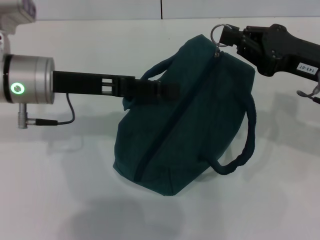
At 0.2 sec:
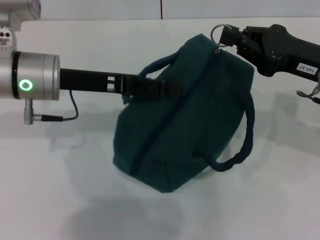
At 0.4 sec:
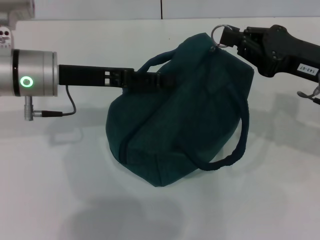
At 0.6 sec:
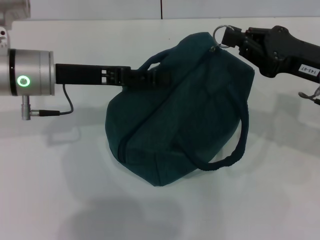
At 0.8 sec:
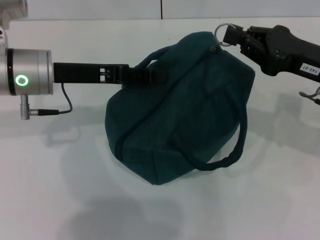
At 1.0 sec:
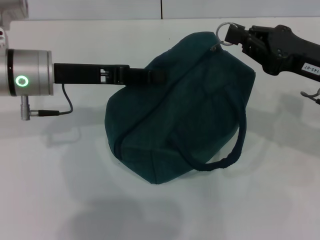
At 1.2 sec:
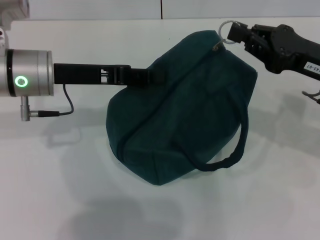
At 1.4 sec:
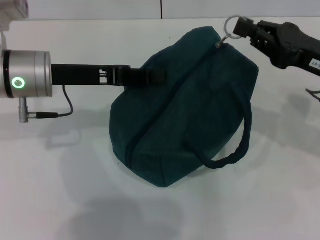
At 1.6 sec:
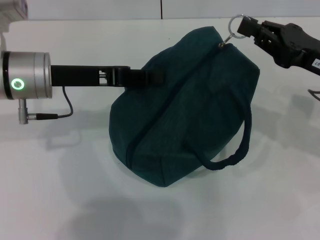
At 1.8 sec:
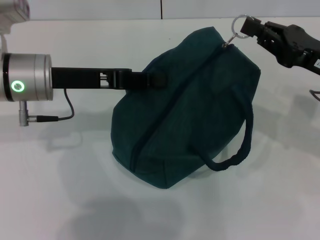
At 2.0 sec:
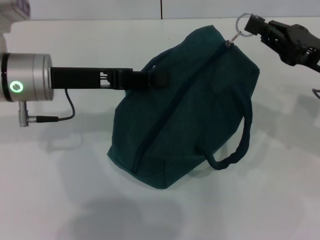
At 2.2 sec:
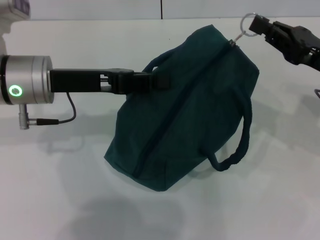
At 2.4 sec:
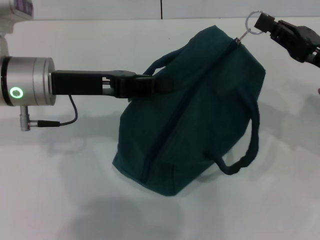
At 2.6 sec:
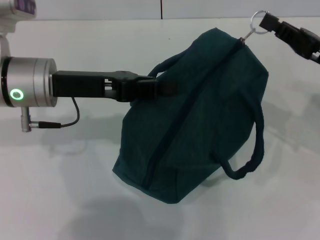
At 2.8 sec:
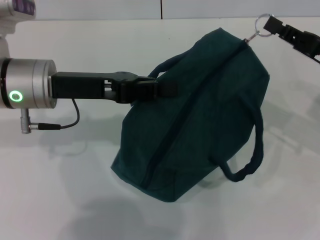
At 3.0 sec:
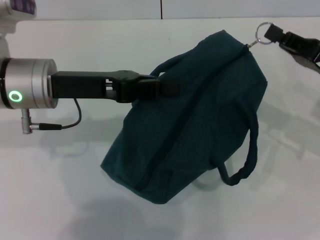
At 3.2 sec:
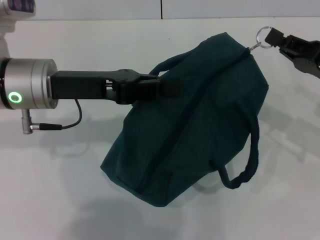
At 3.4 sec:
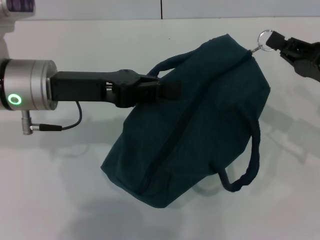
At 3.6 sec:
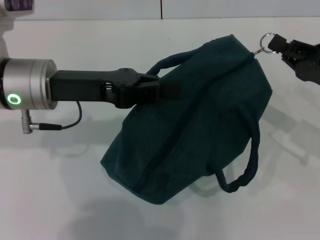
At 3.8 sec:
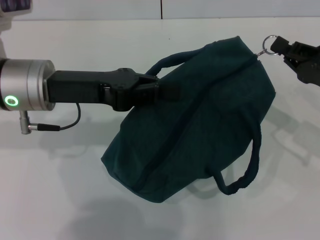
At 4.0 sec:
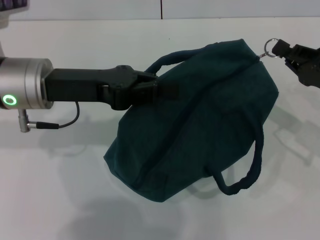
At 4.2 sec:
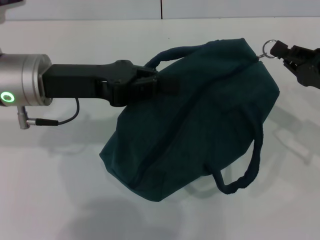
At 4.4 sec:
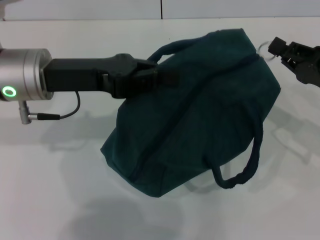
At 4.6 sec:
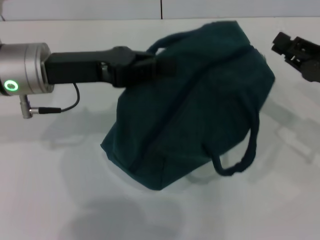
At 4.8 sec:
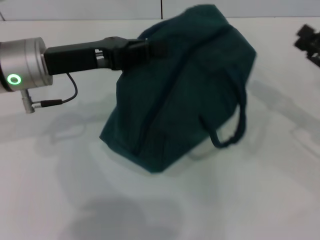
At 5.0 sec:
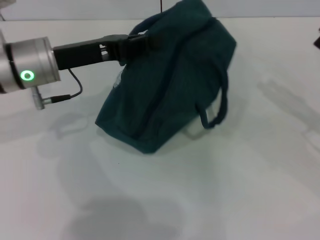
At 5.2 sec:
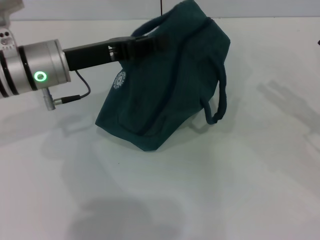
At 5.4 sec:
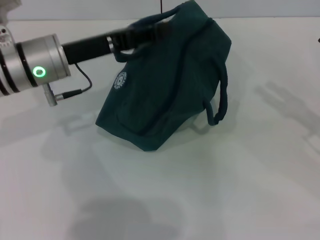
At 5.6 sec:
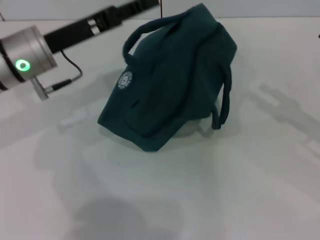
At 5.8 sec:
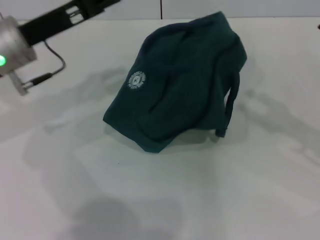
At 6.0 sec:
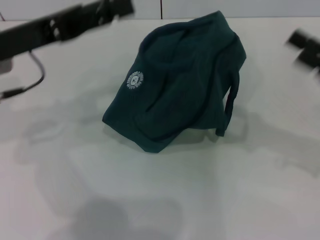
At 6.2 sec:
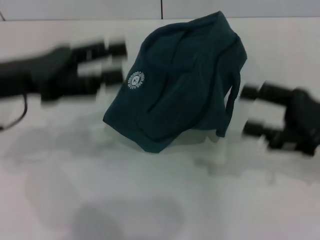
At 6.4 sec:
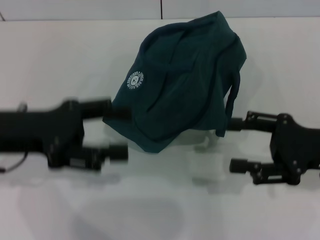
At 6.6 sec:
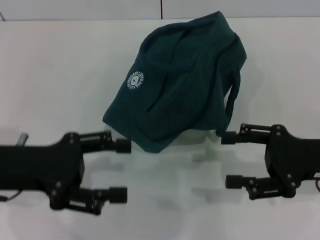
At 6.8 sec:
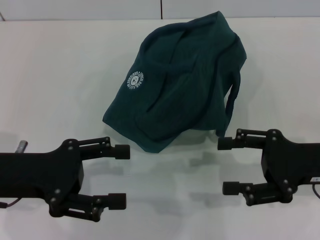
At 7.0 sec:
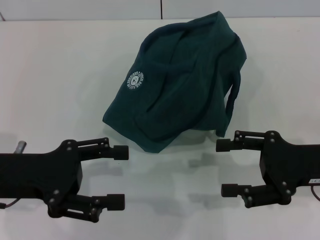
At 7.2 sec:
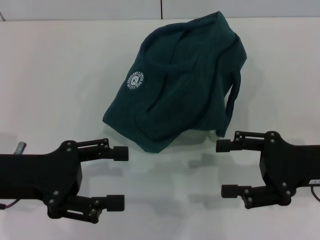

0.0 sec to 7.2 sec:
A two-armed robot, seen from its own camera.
Step, 0.0 sec to 4.4 sec: Zip up the lunch bag with your right hand.
Step, 4.6 sec to 5.4 sec: Hold the lunch bag with your left hand.
0.0 sec to 1.4 sec: The left gripper closes its fingers.
4.4 sec to 5.8 sec: The right gripper ends up roughly 5 cm from where it was, and opens its fingers, while the left gripper opens up.
5.8 sec to 7.2 sec: The left gripper goes about 10 cm backward, and opens up. Meanwhile the right gripper moves to the left, roughly 10 cm.
